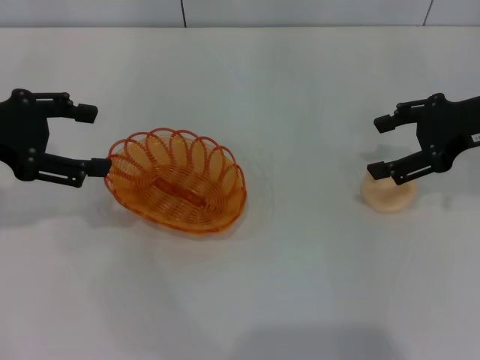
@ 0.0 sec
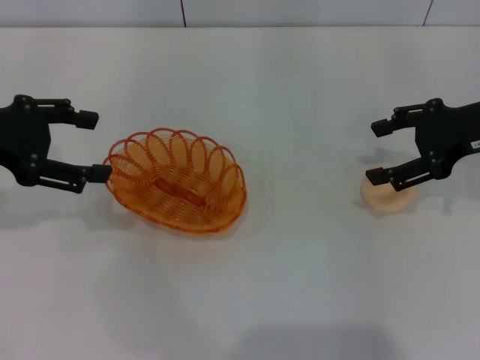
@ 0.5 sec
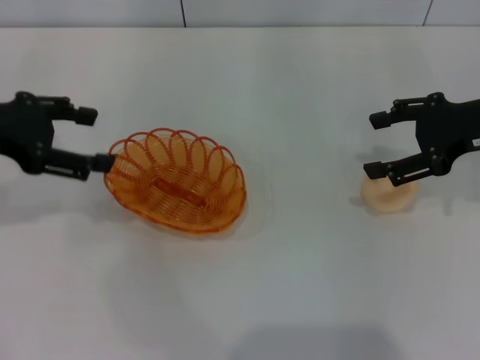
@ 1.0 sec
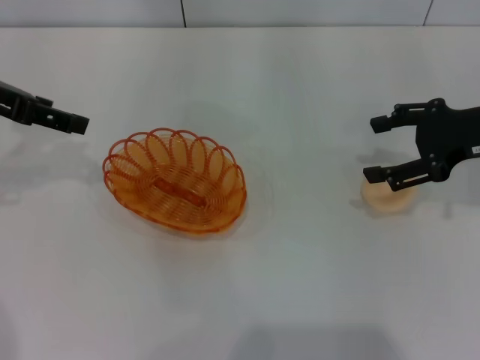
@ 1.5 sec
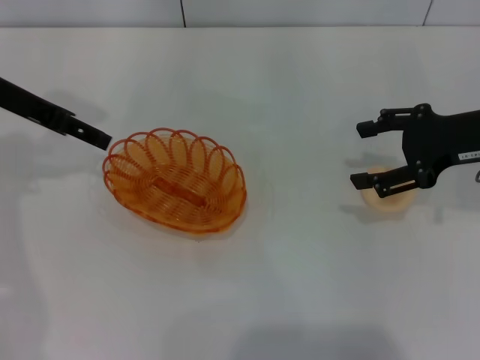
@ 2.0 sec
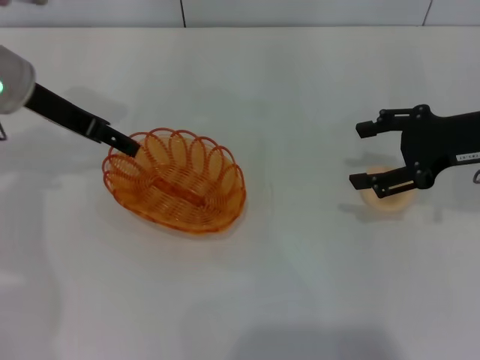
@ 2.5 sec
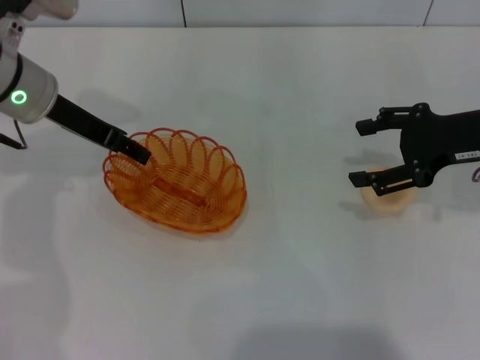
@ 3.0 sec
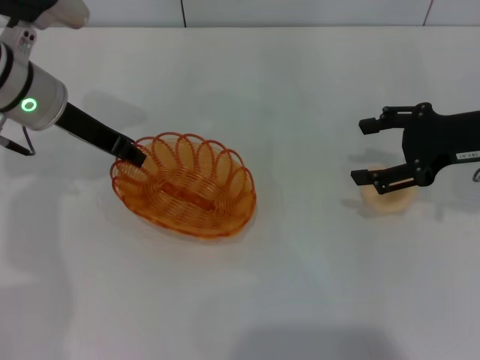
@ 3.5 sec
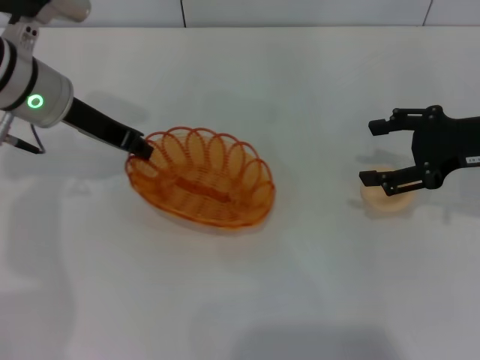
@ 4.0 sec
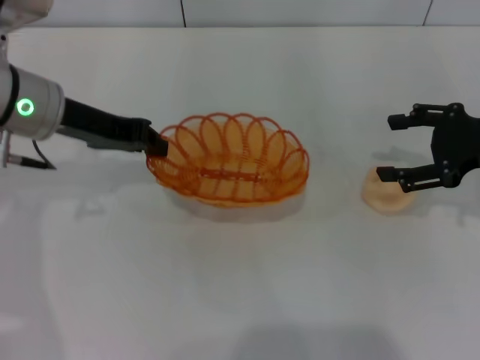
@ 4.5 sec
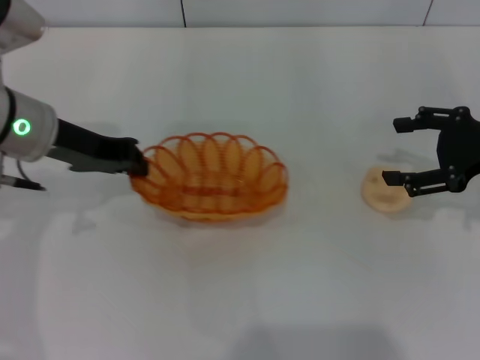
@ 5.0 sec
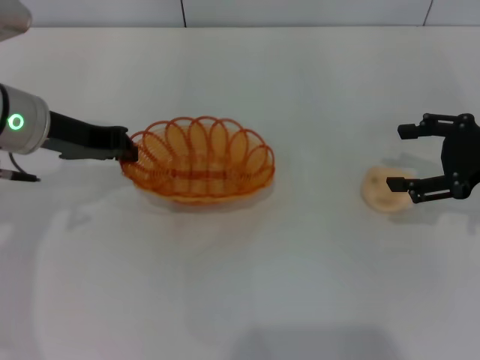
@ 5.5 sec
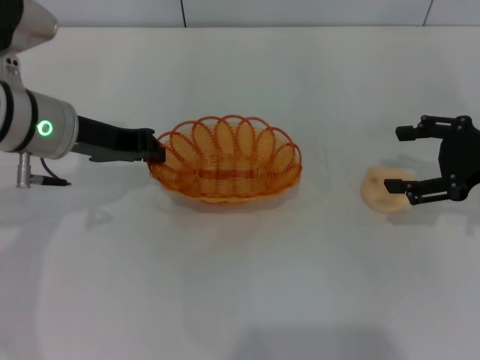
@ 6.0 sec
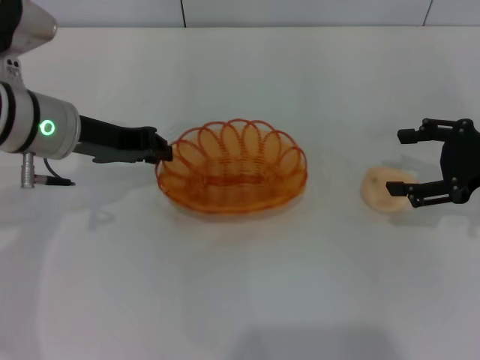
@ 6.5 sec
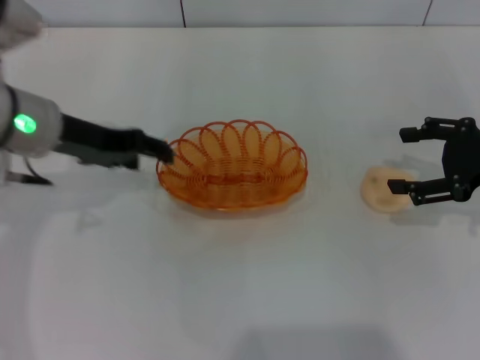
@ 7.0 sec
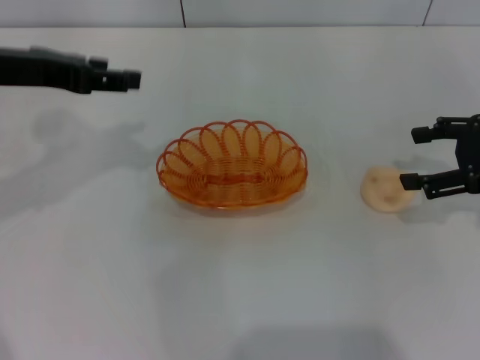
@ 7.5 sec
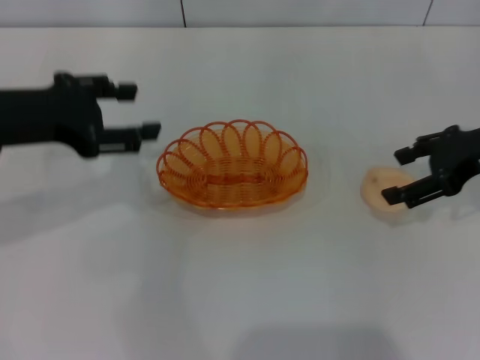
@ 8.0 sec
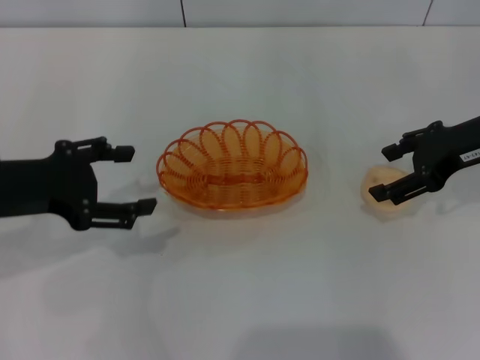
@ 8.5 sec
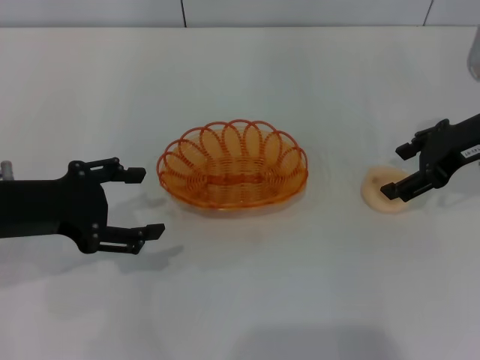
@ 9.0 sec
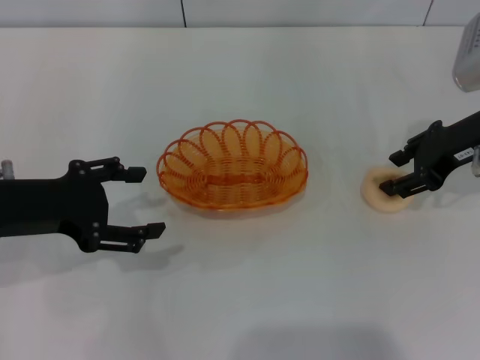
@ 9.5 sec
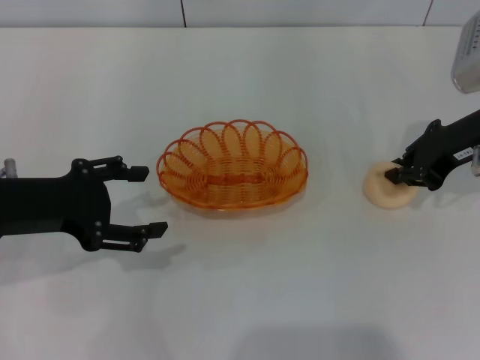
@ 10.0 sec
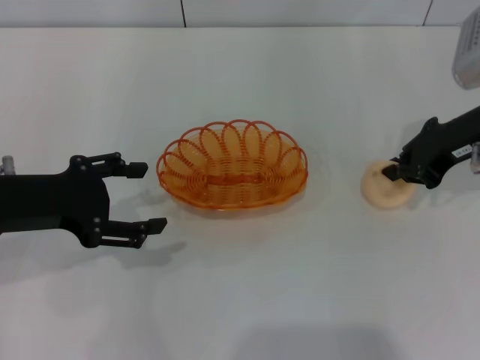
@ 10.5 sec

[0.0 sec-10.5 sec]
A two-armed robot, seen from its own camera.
Step, 0.0 sec to 4.0 sec: Pick up the basket with the left gripper.
Step, 4.5 sec to 7.0 sec: Place the basket in the center of view with the left gripper.
0.0 sec to 2.0 sec: The left gripper shifts about 5 cm forward.
2.0 sec to 4.0 sec: The left gripper travels to the right by about 5 cm, and closes up.
6.5 sec to 8.5 sec: The right gripper shifts by some 5 cm; the left gripper is displaced backward and to the left by approximately 10 cm, and opens.
8.5 sec to 10.5 sec: The right gripper closes.

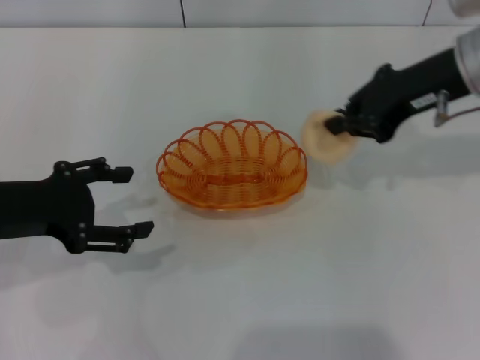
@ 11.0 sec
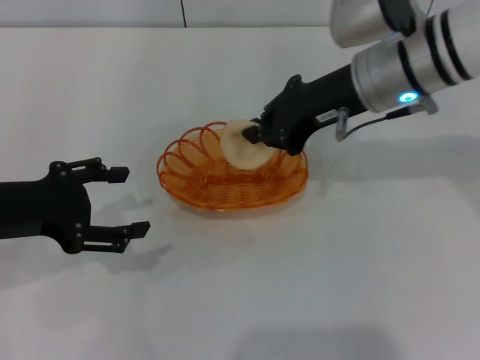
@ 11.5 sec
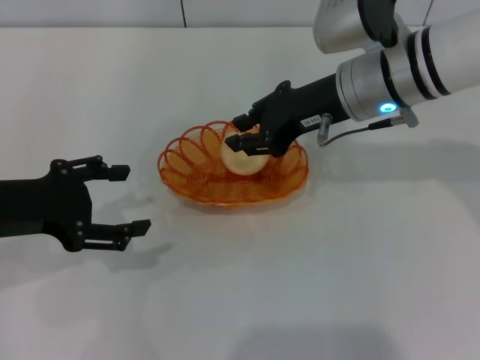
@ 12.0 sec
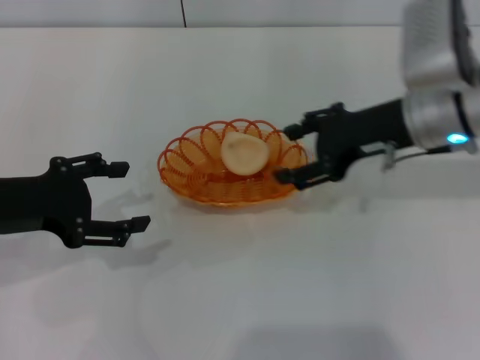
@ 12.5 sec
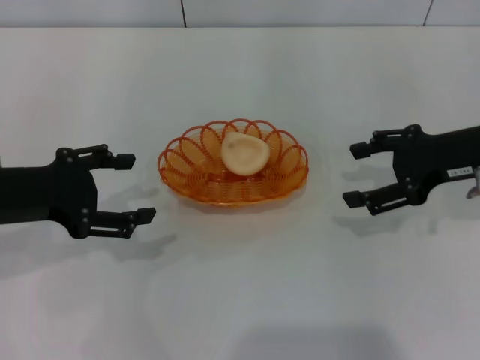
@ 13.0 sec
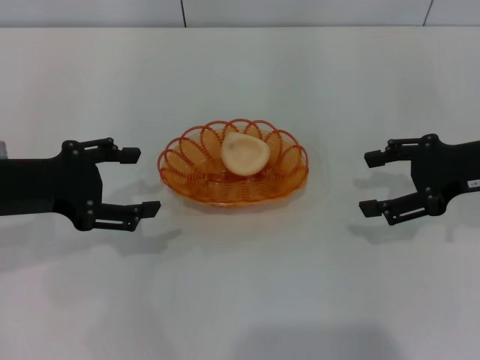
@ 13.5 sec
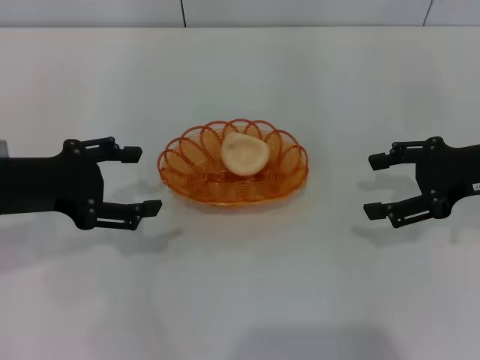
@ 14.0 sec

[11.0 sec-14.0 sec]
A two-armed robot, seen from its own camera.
Step, 11.0 sec to 12.5 sec: Place the egg yolk pastry into the basket with the right gripper.
11.0 sec to 12.5 sec: The right gripper shifts about 5 cm downward, reaches about 10 cm to the left, then returns, and opens its fingers.
12.5 sec to 14.0 sec: The right gripper moves to the right, about 10 cm.

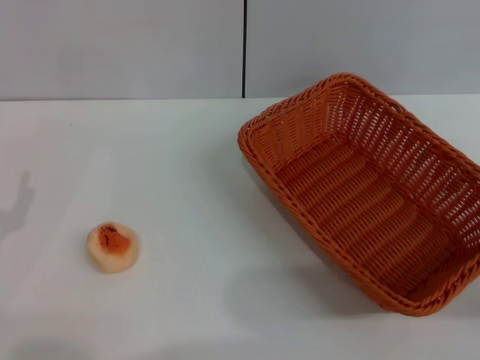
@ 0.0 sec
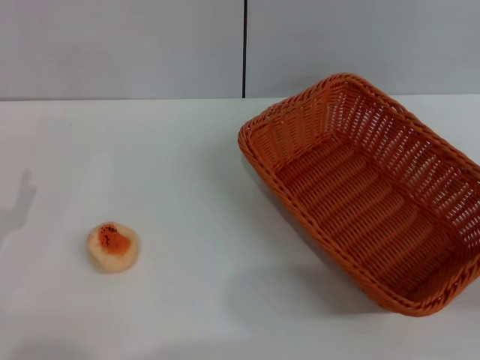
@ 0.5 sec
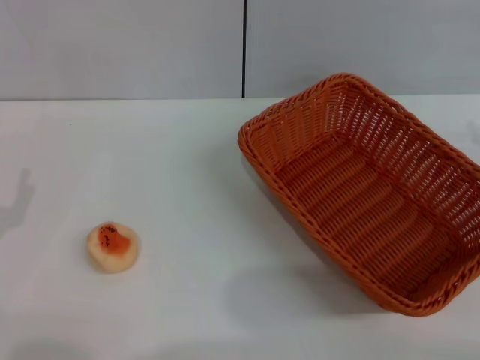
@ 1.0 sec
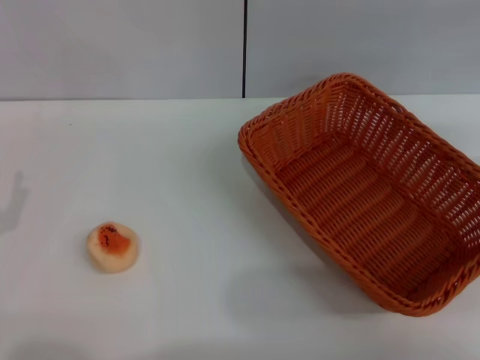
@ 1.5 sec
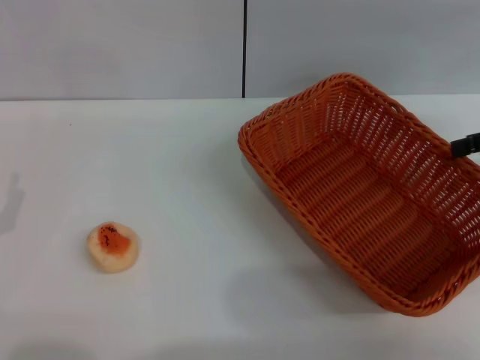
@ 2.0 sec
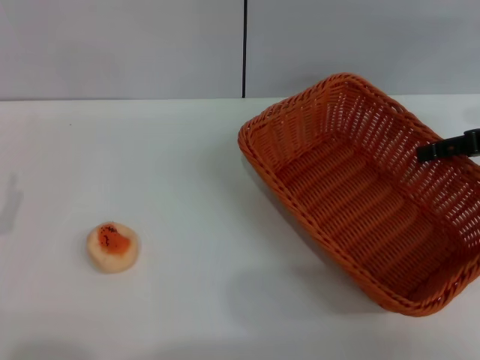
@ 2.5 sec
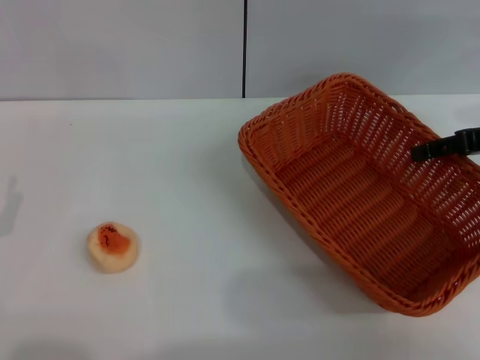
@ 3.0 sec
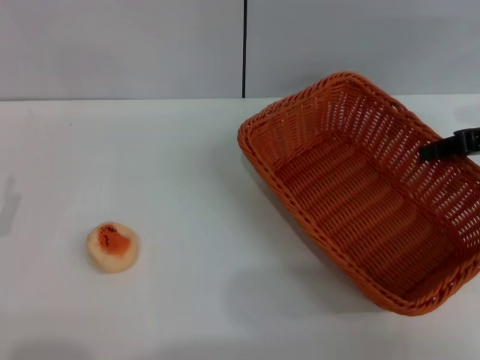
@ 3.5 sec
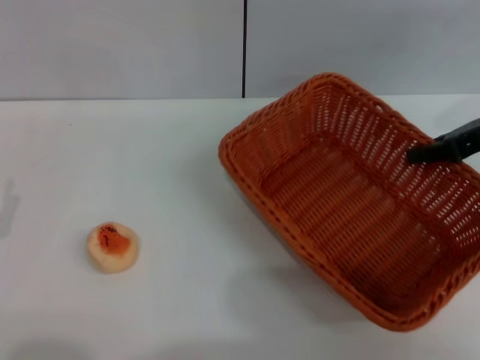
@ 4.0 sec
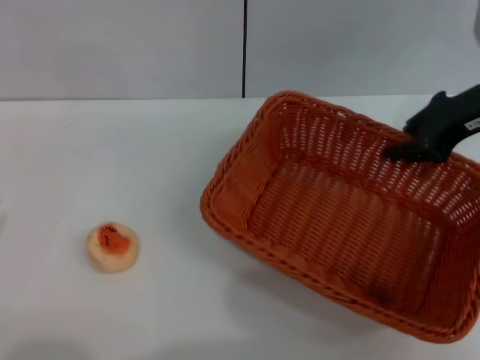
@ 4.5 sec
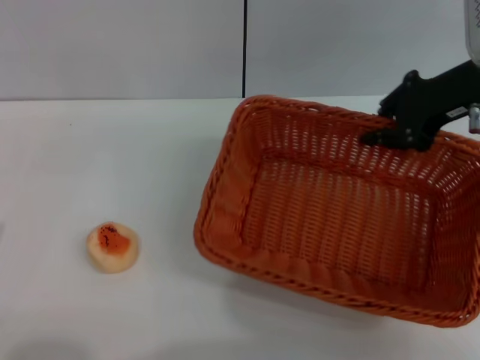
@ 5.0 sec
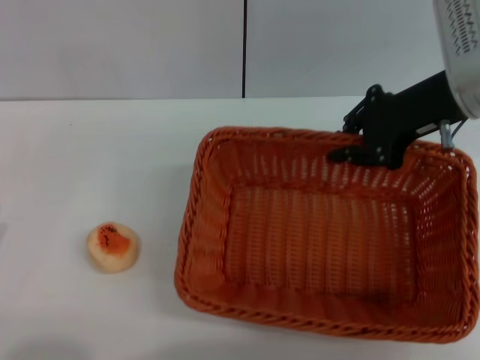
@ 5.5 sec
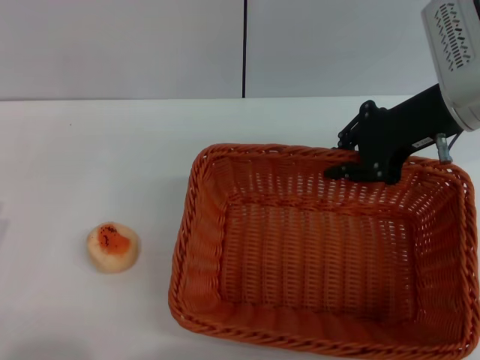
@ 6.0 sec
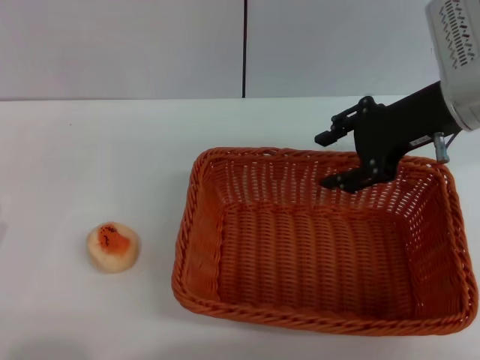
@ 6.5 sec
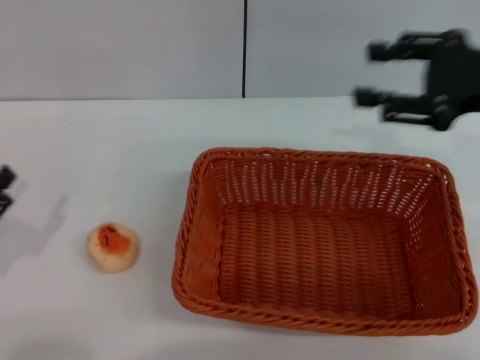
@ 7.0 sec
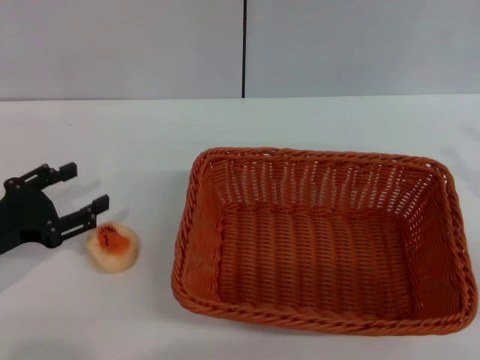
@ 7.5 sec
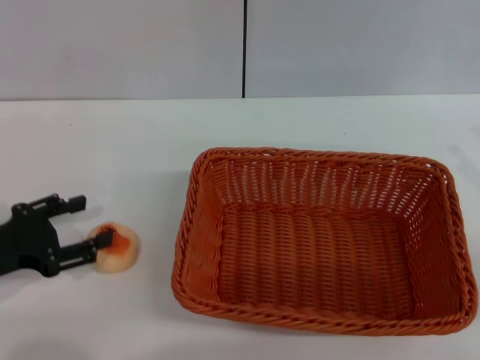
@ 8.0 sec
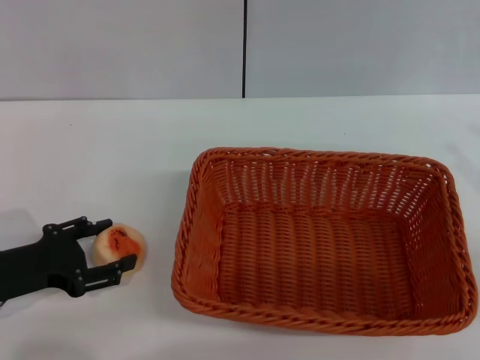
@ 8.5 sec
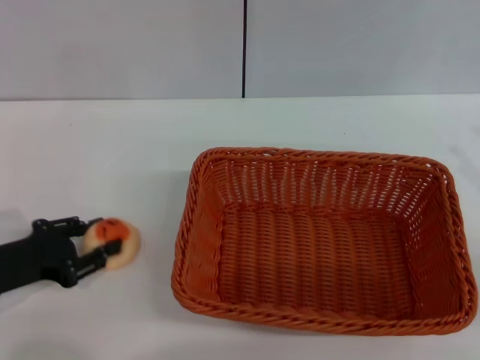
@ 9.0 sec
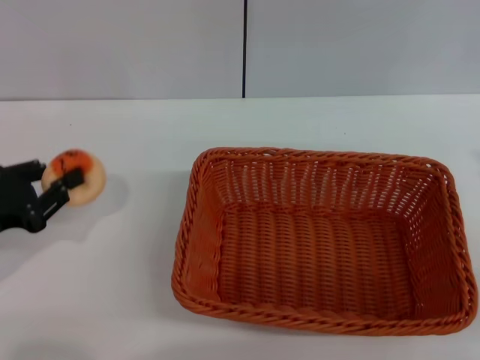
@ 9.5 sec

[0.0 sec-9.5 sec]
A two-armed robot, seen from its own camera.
Step, 0.0 sec to 6.5 sec: Move the basket to the center of view with the right gripper.
Step, 7.5 sec to 9.5 sec: Pick up the egg yolk pastry with the left gripper.
0.0 sec to 2.0 sec: The right gripper shifts roughly 15 cm forward and upward.
2.0 sec to 4.0 sec: The right gripper moves roughly 5 cm, and closes up.
4.0 sec to 5.5 sec: The right gripper heads to the left, covering some 10 cm.
5.5 sec to 7.5 sec: The left gripper travels forward by some 10 cm, while the right gripper moves backward and to the right, roughly 20 cm, and opens its fingers.
7.5 sec to 9.5 sec: The left gripper closes.

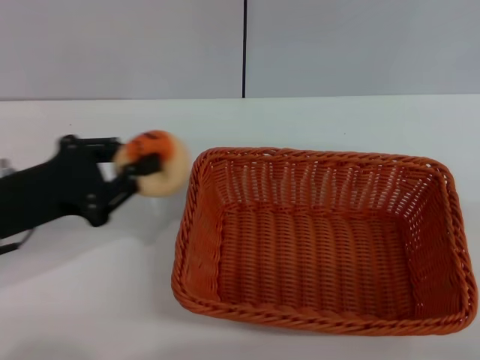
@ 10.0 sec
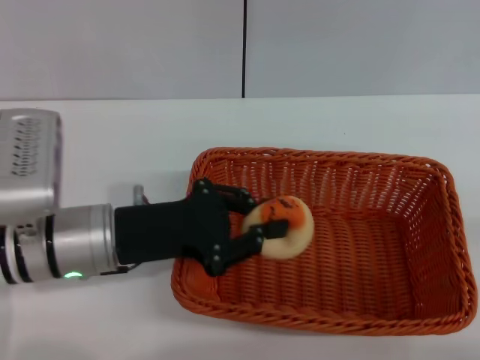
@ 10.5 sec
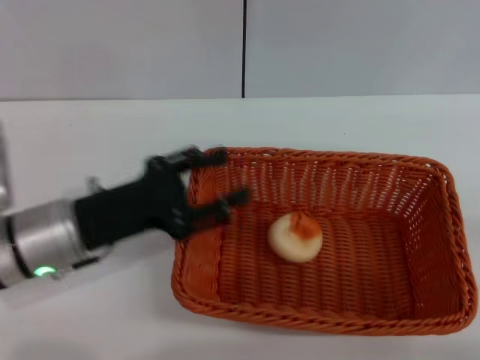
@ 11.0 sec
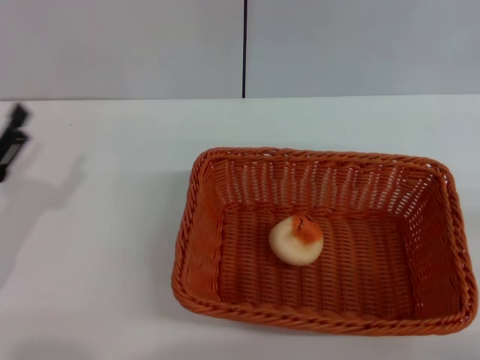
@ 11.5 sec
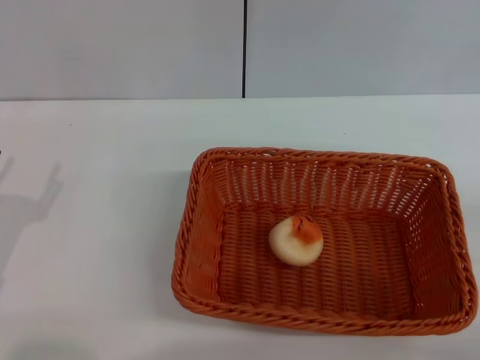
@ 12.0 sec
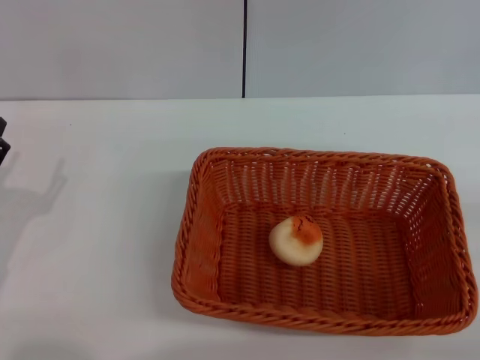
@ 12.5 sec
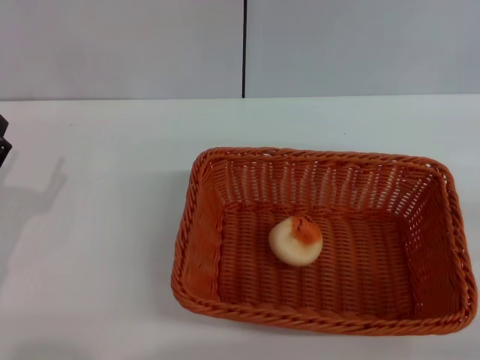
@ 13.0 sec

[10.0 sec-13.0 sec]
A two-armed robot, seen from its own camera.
Step, 10.0 sec to 11.0 sec: Place the egg yolk pastry into the basket with the left gripper.
10.0 sec to 11.5 sec: The left gripper is displaced downward by about 5 cm, moves some 10 cm to the right and comes back, and opens its fingers.
